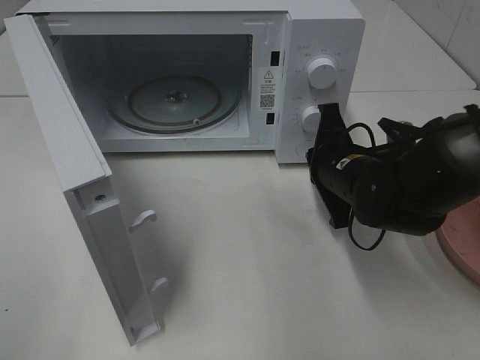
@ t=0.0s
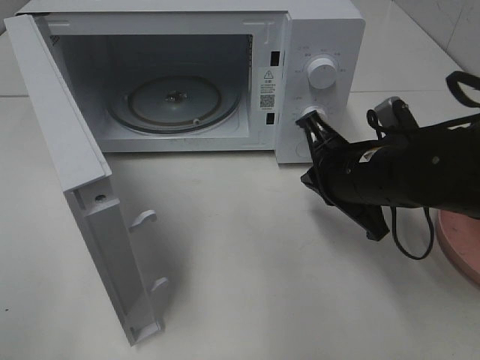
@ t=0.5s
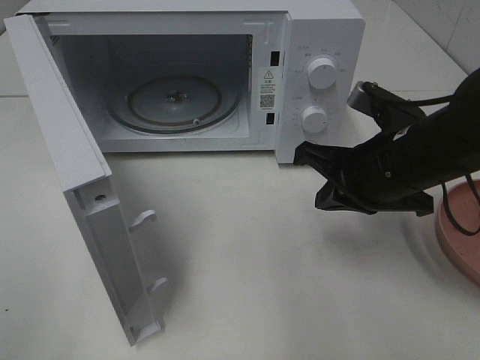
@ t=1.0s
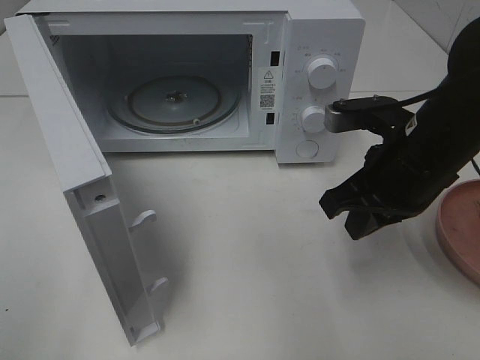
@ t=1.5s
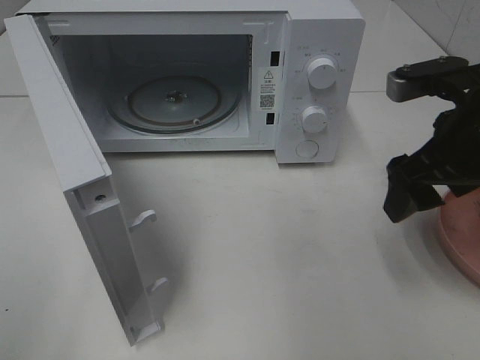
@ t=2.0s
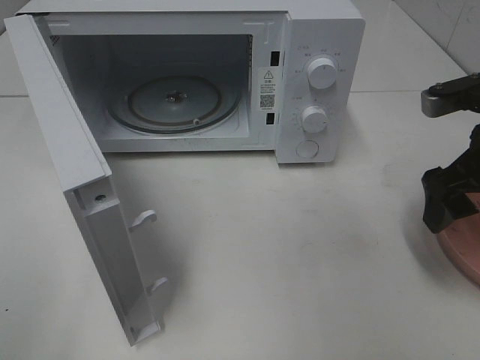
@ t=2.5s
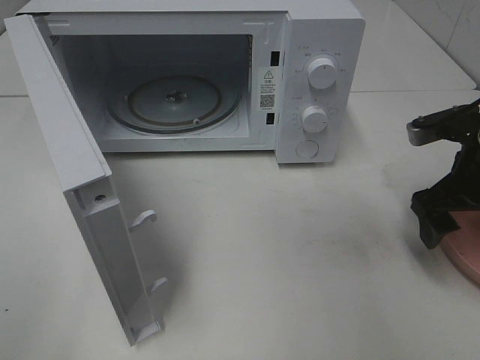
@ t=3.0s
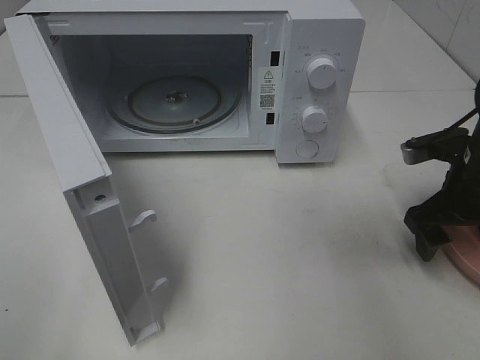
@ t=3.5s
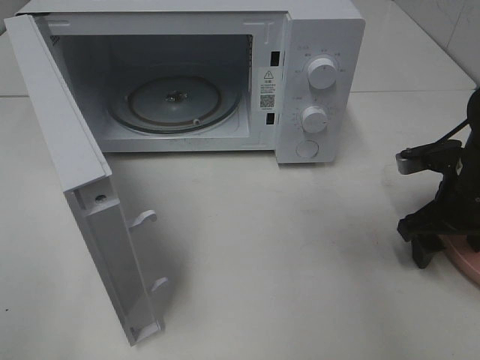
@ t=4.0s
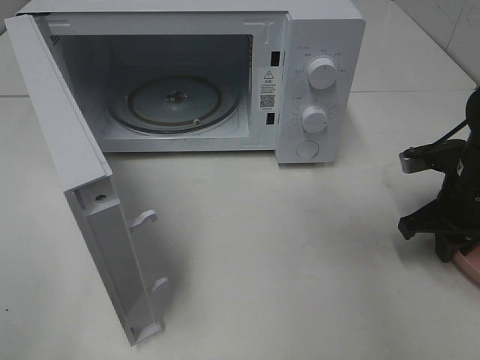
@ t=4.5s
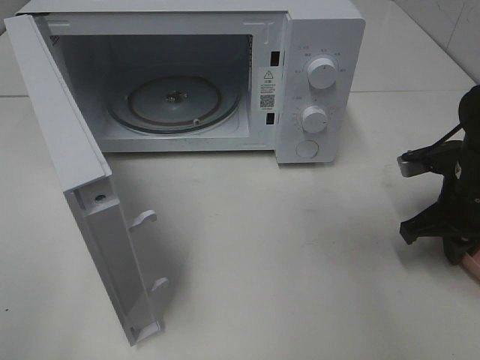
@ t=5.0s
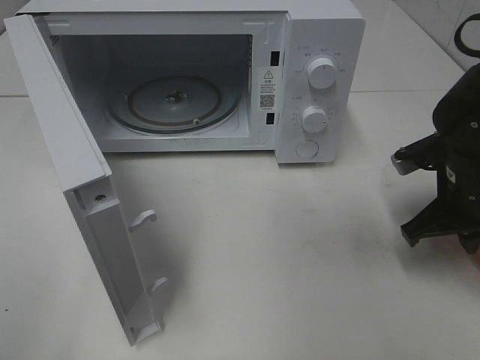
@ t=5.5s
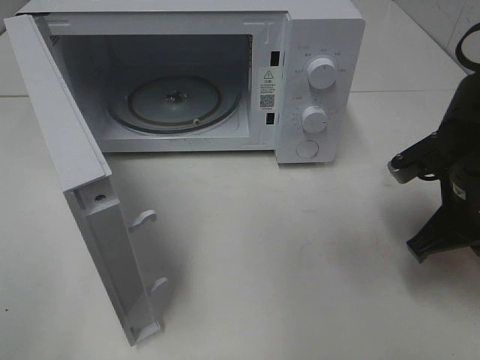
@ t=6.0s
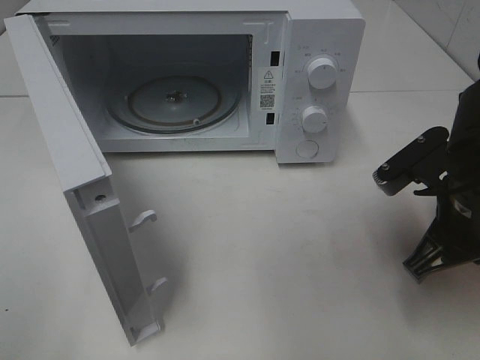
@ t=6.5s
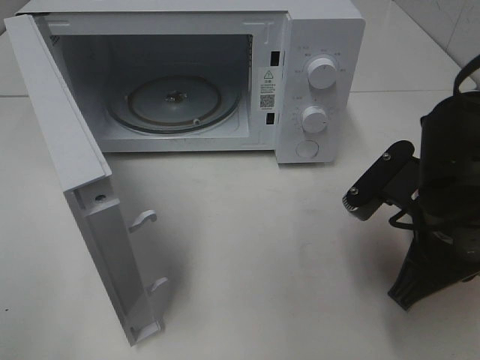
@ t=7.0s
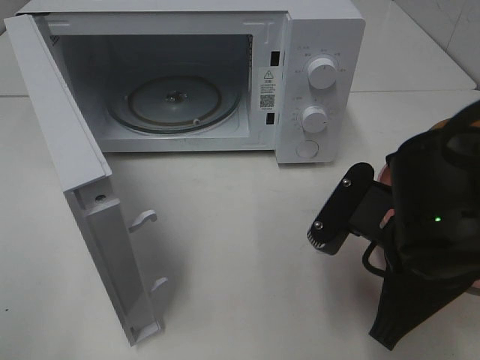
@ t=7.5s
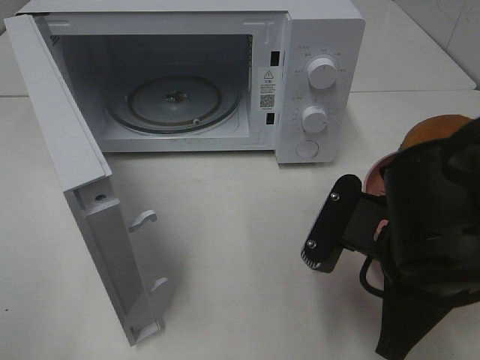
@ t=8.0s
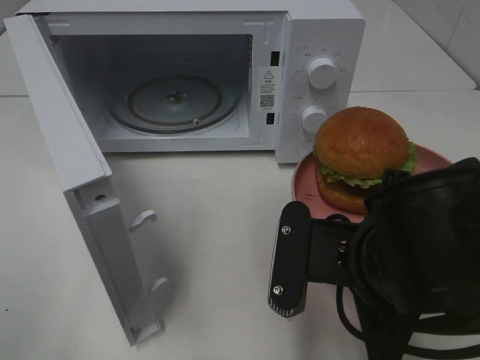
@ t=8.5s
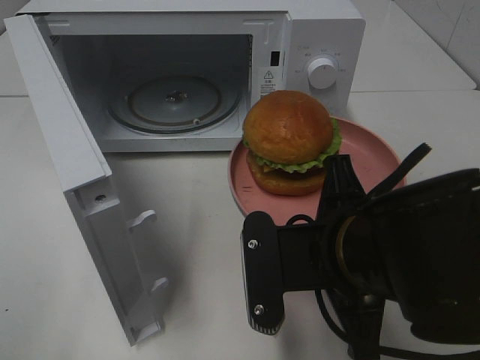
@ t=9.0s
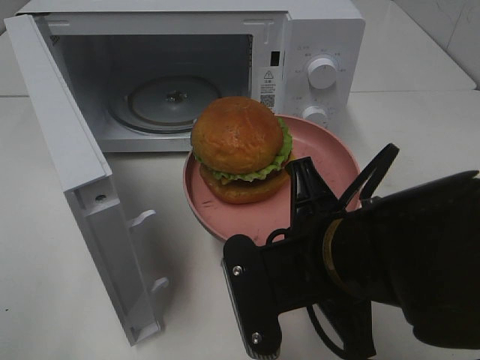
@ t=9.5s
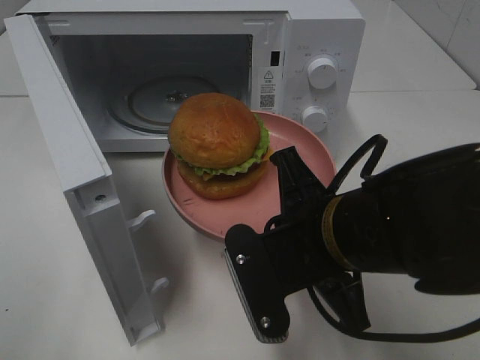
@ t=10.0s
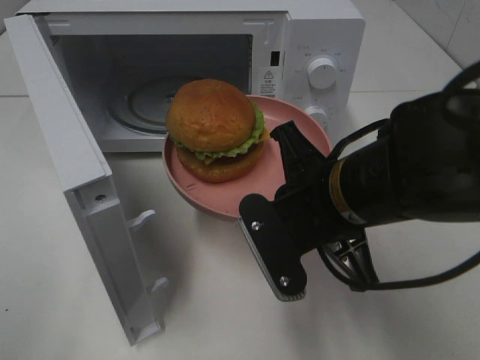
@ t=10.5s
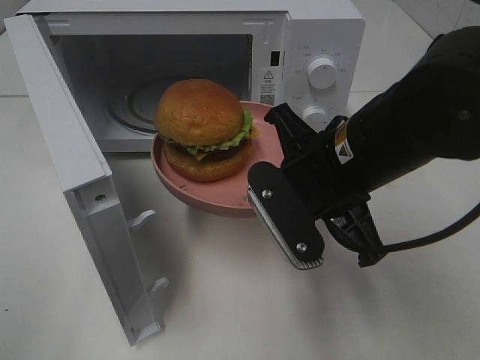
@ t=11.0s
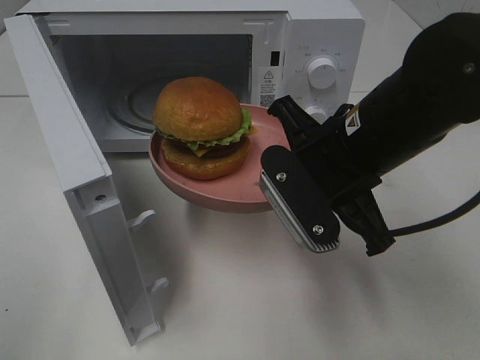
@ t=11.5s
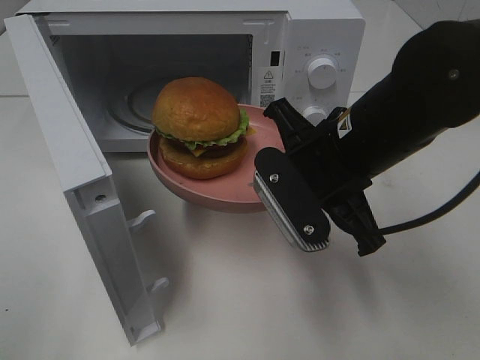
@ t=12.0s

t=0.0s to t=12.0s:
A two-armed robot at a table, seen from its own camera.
Task of the whole recording: Heat the burger.
Step, t=0.5s to t=5.0s: Right hand: grab the plate with the hamburger.
t=0.0s to t=2.0s: The right gripper travels upward, to the right and backward by approximately 15 cm, and opens up.
t=2.0s to t=4.0s: The right gripper shifts roughly 15 cm downward and to the right.
t=4.0s to t=6.0s: The right gripper moves roughly 10 cm, and closes up.
t=6.0s to t=8.0s: The right gripper travels to the left and backward by roughly 15 cm.
t=8.0s to t=10.0s: The right gripper moves to the left, roughly 5 cm.
t=10.0s to t=12.0s: The right gripper is displaced forward by approximately 10 cm.

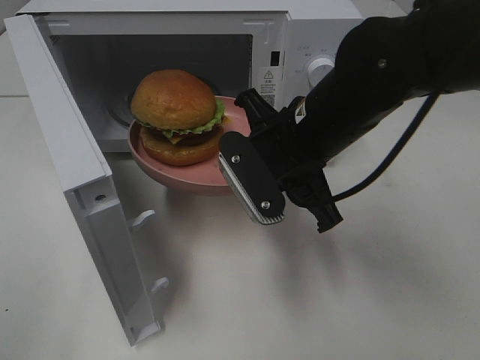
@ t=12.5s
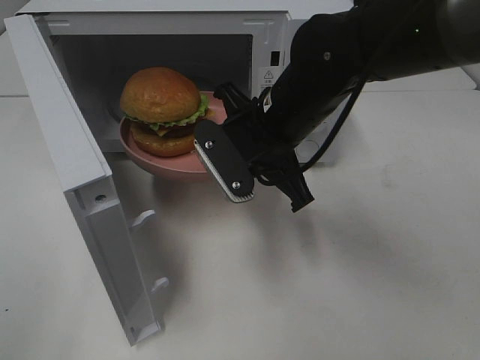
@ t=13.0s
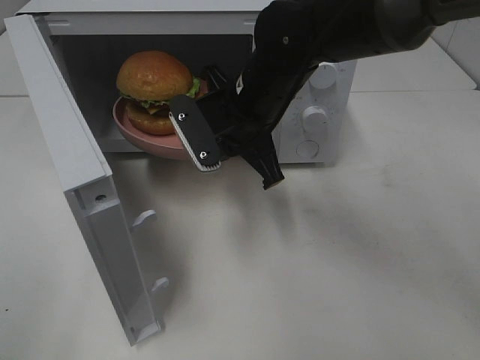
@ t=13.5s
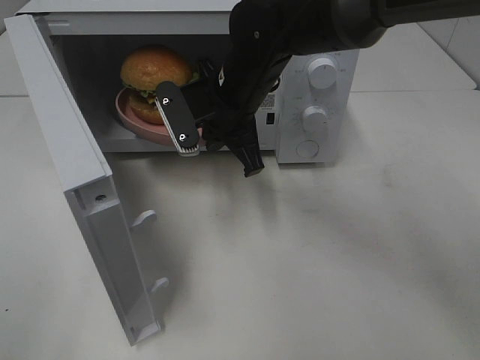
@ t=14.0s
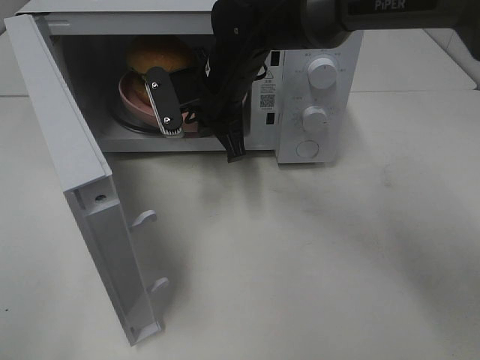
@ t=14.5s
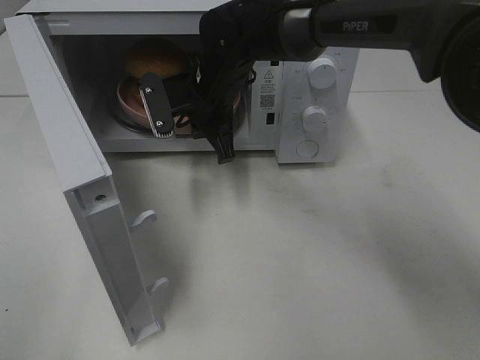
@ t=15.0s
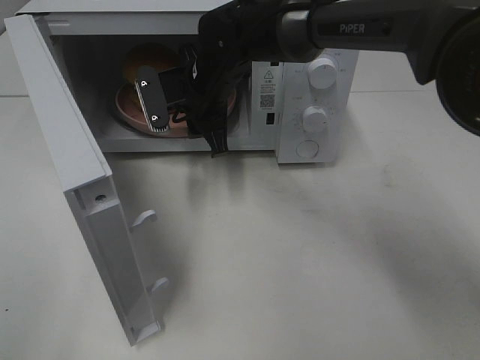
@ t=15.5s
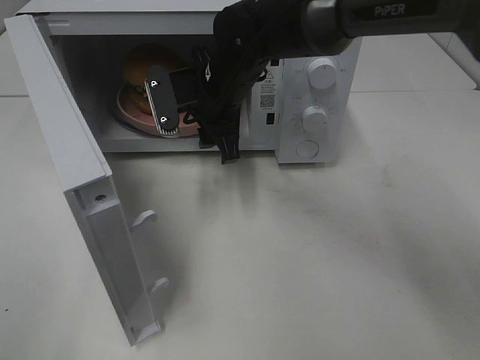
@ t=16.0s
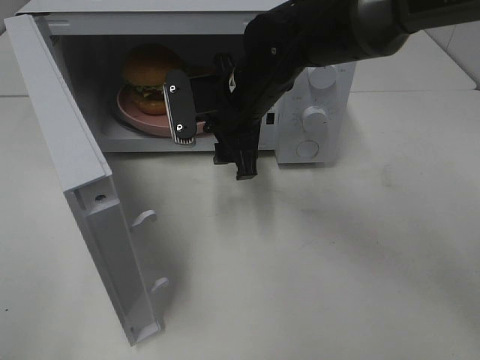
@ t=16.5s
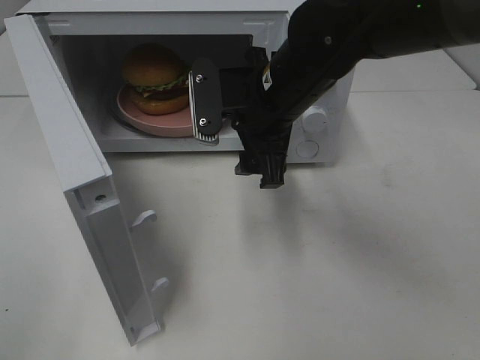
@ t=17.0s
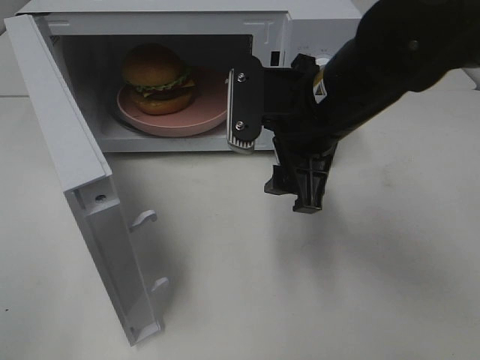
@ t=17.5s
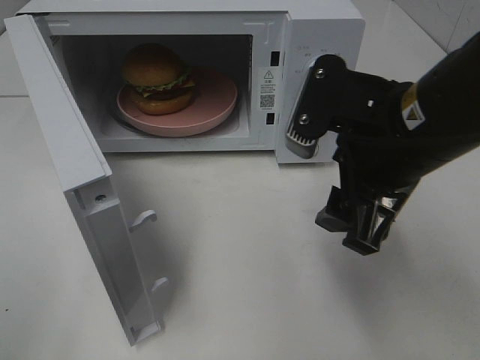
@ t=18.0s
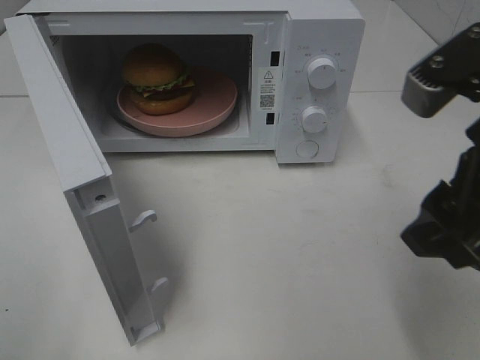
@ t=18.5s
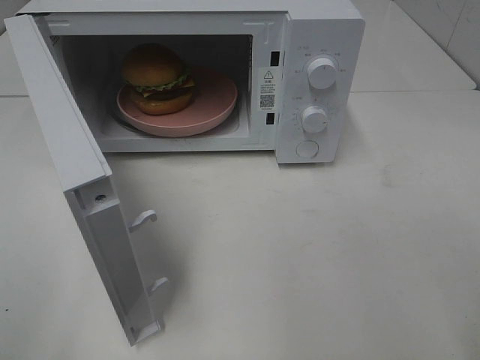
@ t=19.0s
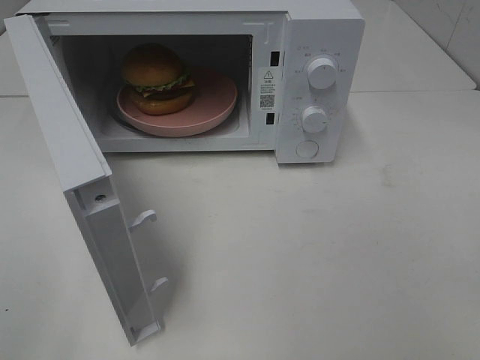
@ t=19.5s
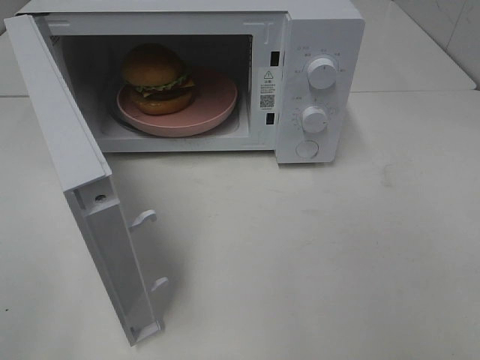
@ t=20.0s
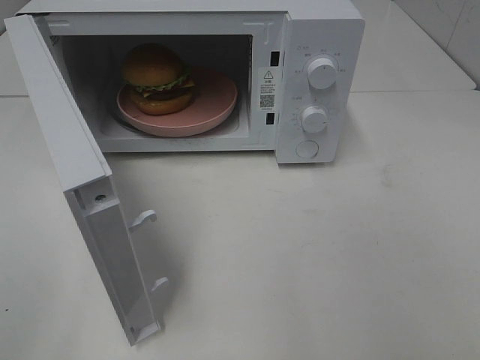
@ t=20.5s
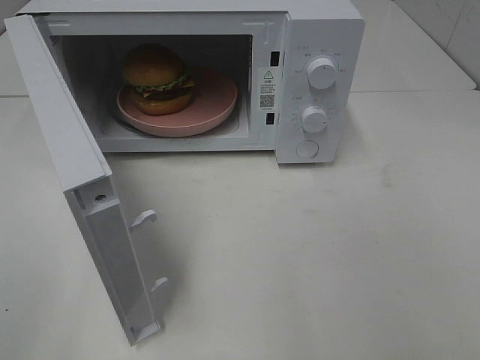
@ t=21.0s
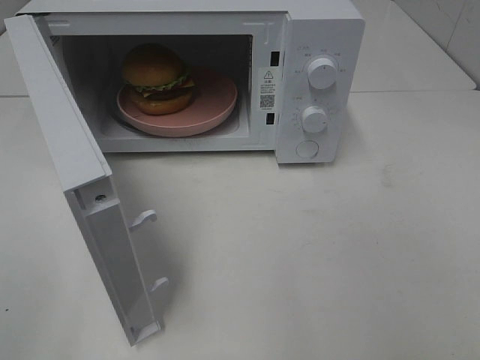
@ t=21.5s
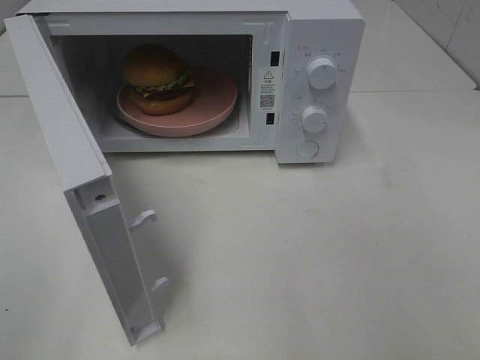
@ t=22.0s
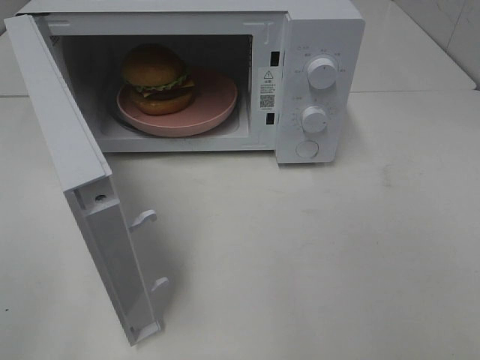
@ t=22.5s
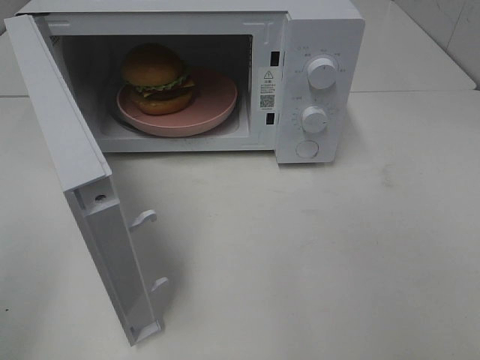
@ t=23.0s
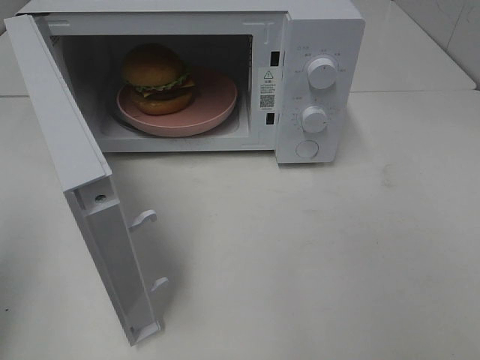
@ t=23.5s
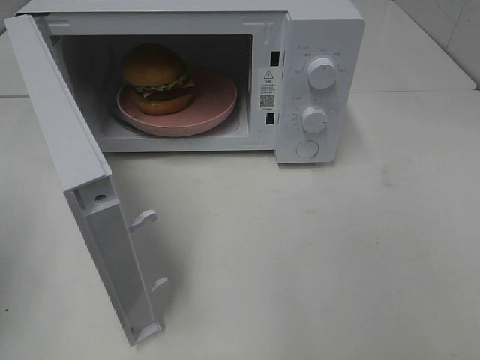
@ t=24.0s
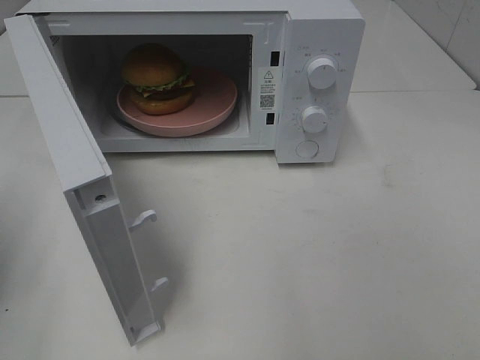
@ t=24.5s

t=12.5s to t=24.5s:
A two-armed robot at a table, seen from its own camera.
Task of the whole recording: Heat the burger.
Step, t=12.5s to t=15.5s: Right hand: place the plate in the microwave.
t=12.5s to t=14.5s: The right gripper travels forward and to the left by some 15 cm.
t=14.5s to t=16.5s: The right gripper opens.
t=16.5s to t=18.5s: The right gripper heads backward, to the right and upward, covering about 30 cm.
t=18.5s to t=20.5s: The right gripper shifts roughly 20 cm backward and to the right.
t=22.5s to t=24.5s: The left gripper heads forward, covering approximately 20 cm, and closes.

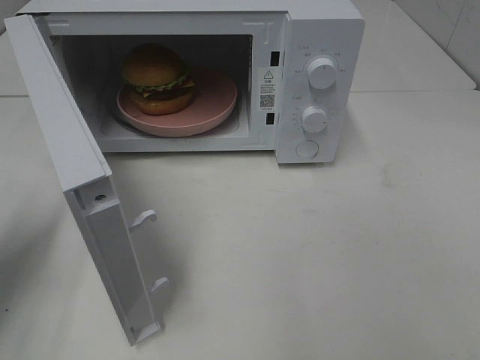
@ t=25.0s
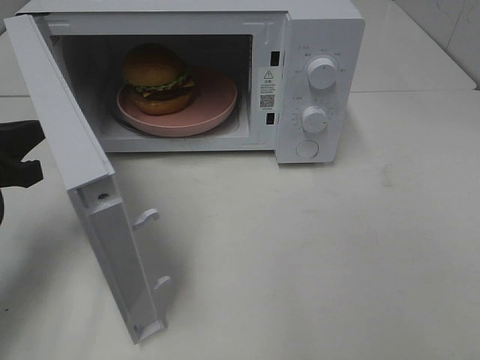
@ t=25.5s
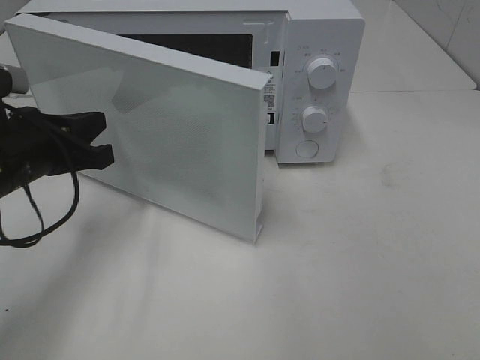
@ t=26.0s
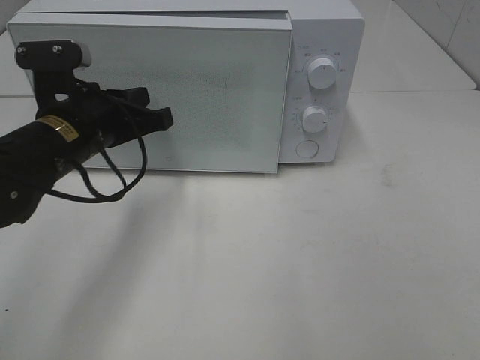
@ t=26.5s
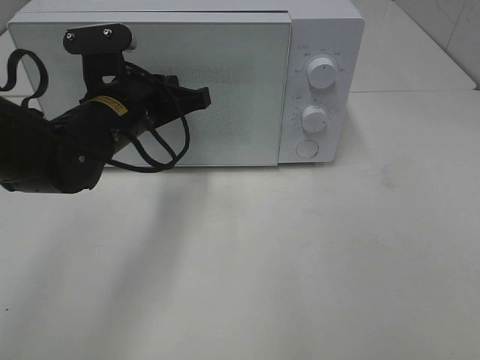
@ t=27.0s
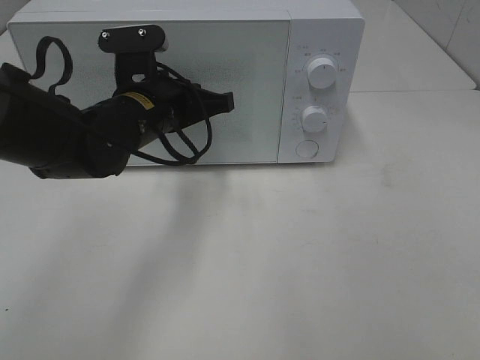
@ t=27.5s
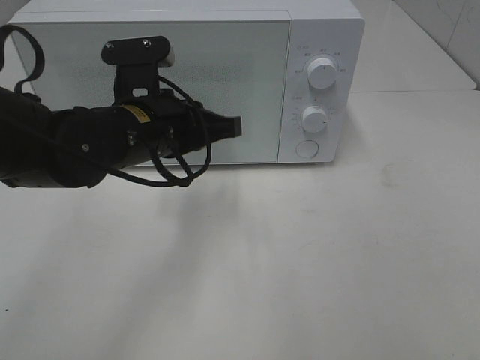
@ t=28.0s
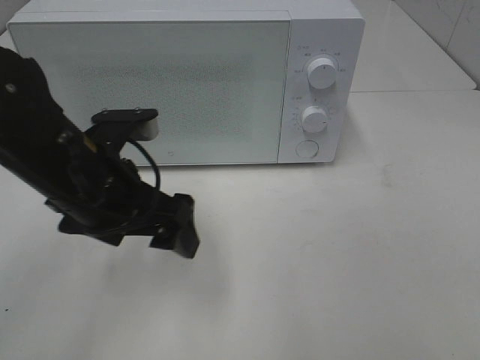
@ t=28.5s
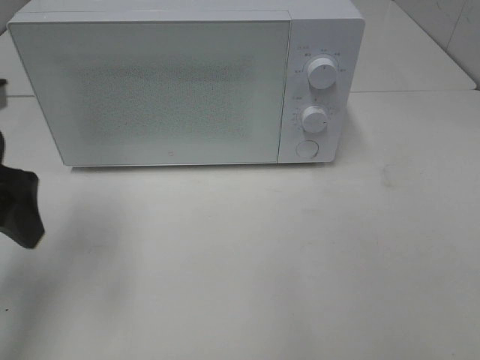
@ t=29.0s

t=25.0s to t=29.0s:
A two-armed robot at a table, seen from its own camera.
Task of the whole recording: Heat the burger.
Step, t=25.0s to t=28.0s: Left hand: close the microwave door.
t=25.0s to t=27.0s: The left gripper heads to the right and forward, covering about 25 cm.
t=27.0s to t=29.0s: The left gripper heads to the left, backward and upward, covering about 20 cm, and opens up.
